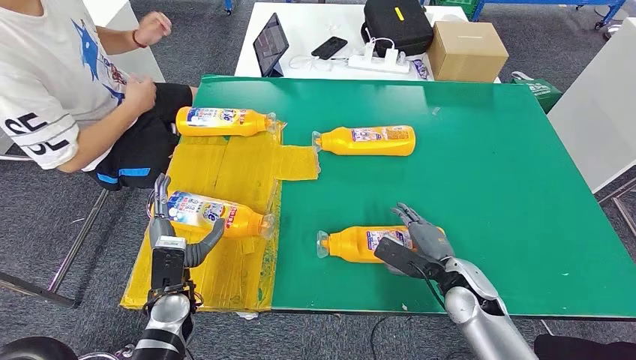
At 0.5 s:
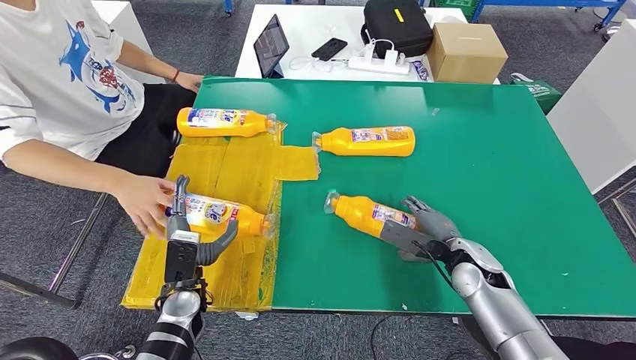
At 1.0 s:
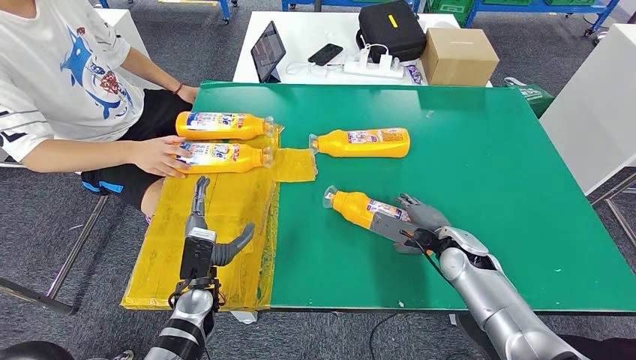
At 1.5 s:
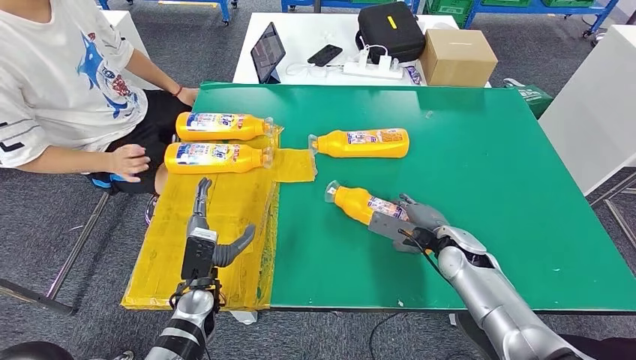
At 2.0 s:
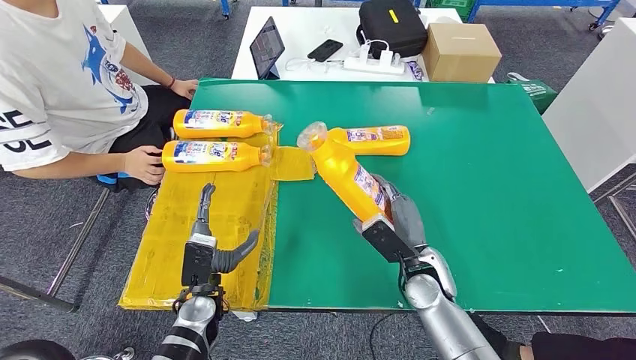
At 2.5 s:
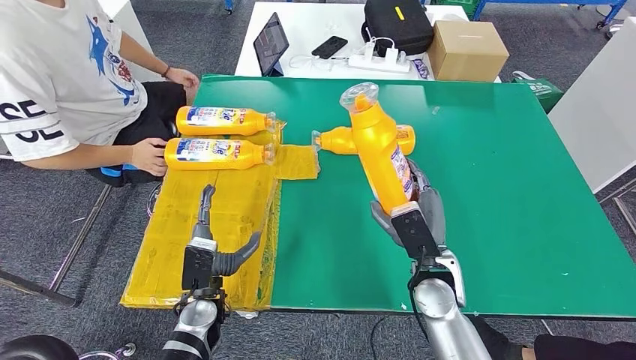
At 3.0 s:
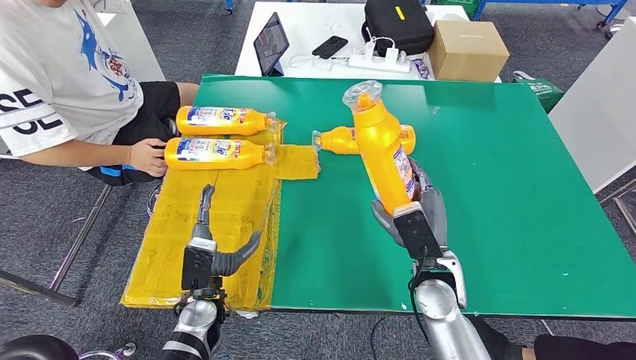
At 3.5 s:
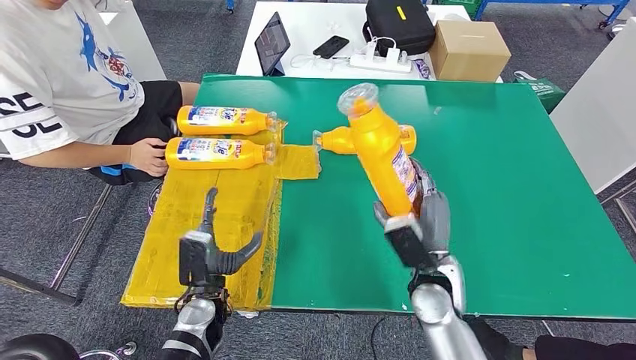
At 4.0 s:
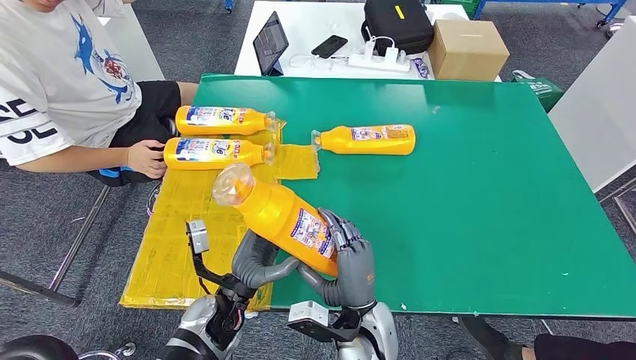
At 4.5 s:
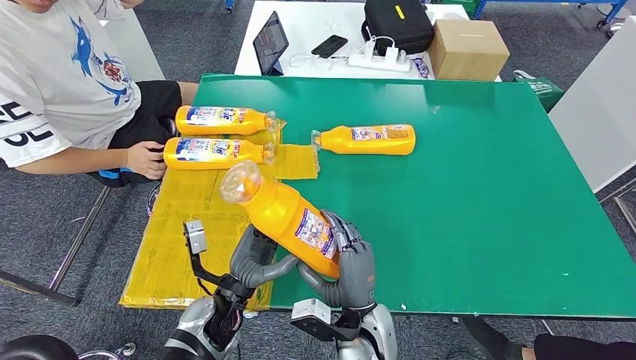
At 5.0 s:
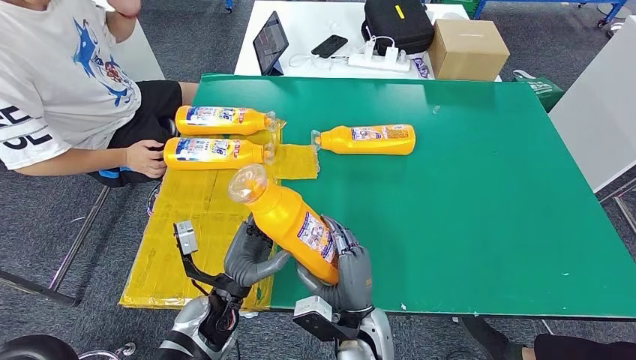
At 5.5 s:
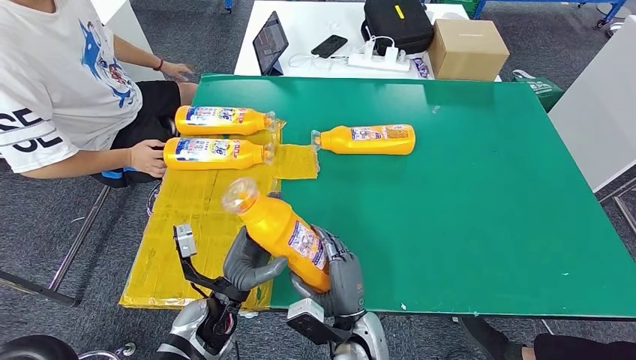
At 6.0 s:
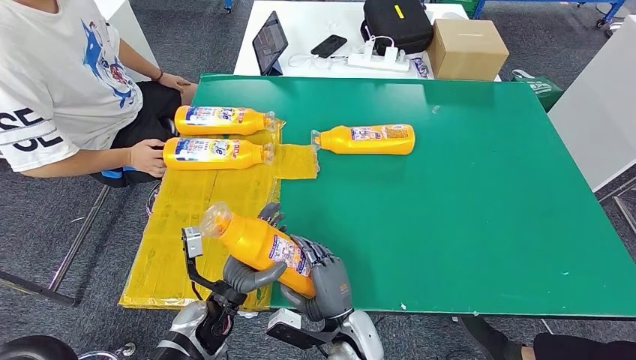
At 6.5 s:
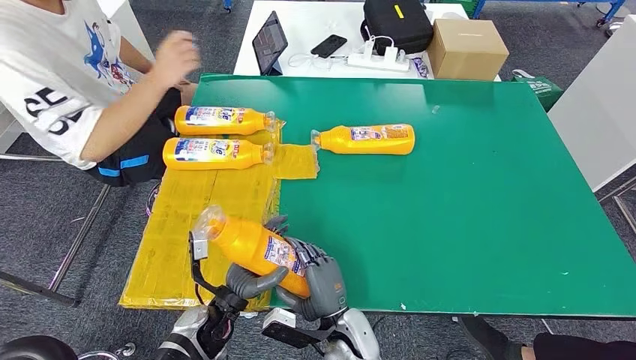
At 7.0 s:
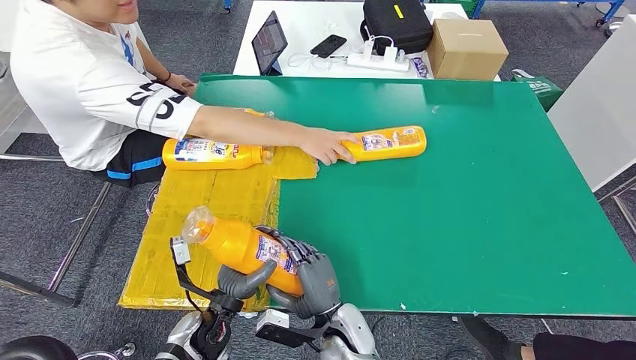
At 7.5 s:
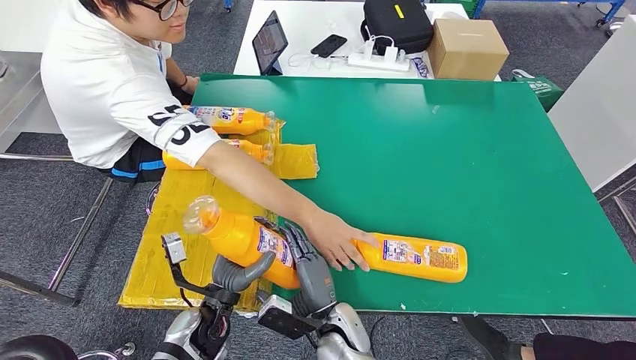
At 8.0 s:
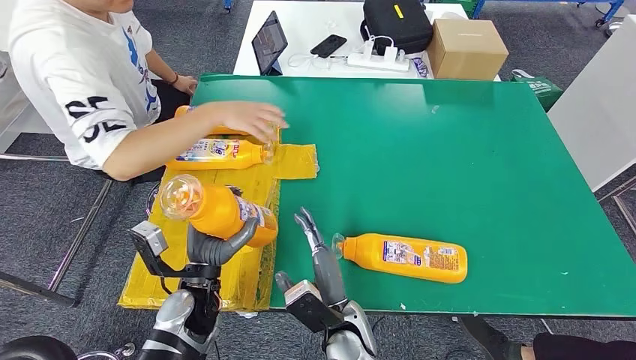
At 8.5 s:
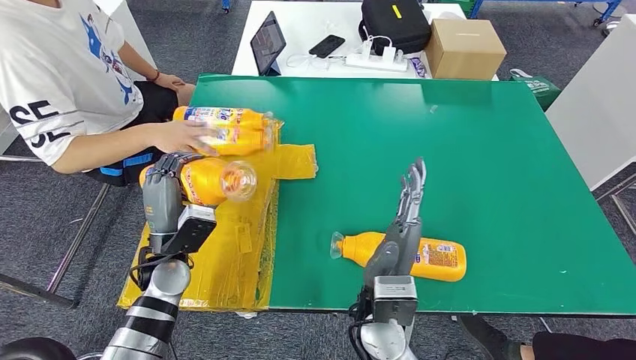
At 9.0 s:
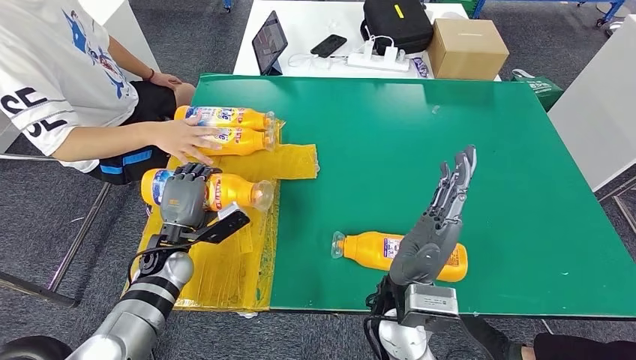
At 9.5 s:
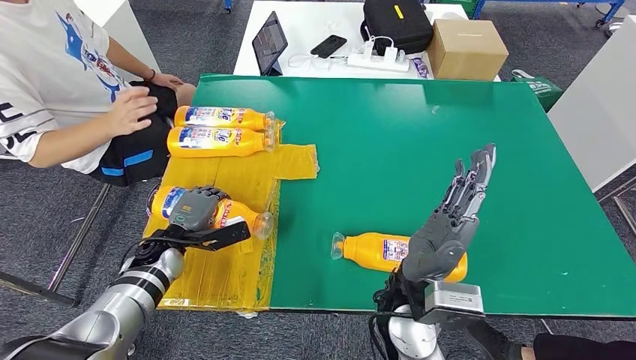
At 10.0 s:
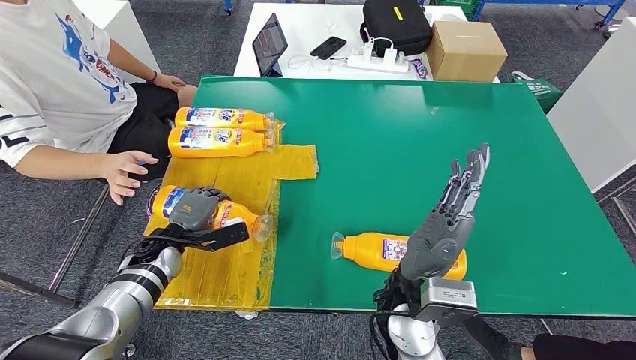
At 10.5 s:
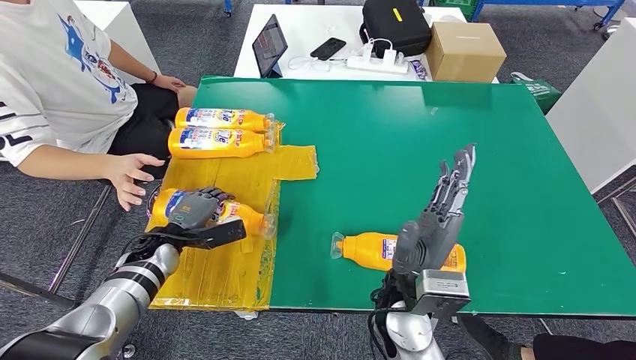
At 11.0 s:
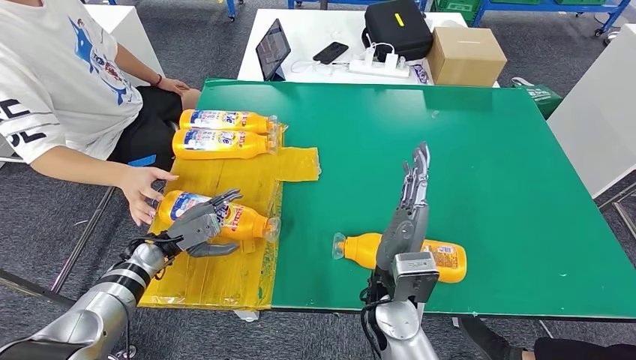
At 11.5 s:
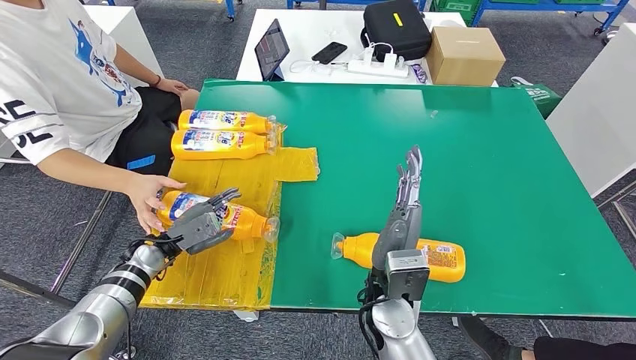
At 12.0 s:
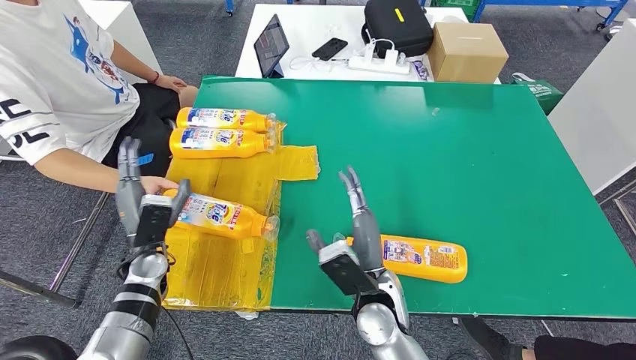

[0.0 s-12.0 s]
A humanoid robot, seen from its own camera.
Step, 0.0 to 2.5 s: Pick up the fast-moving consumer goods bottle from the table.
Step, 3.5 to 10.0 s: Flip the fast-moving consumer goods bottle to the front side.
4.0 to 6.0 s: The right hand is displaced downward by some 5 cm.

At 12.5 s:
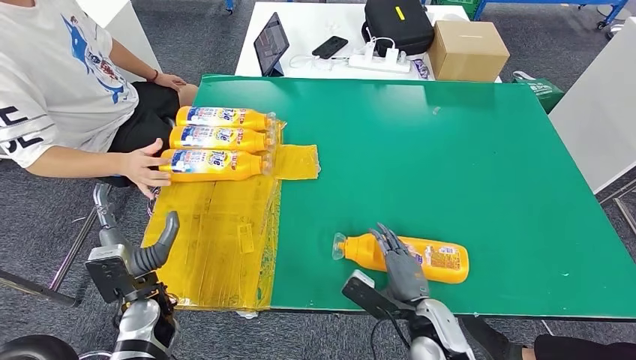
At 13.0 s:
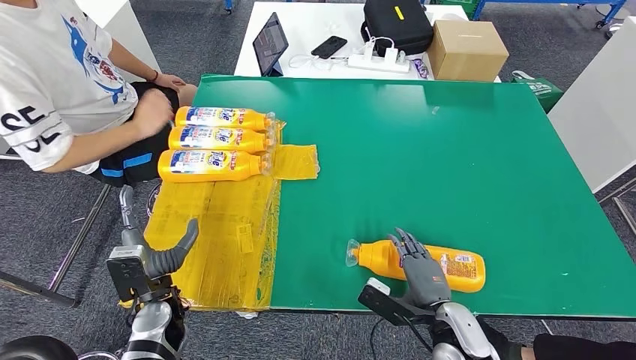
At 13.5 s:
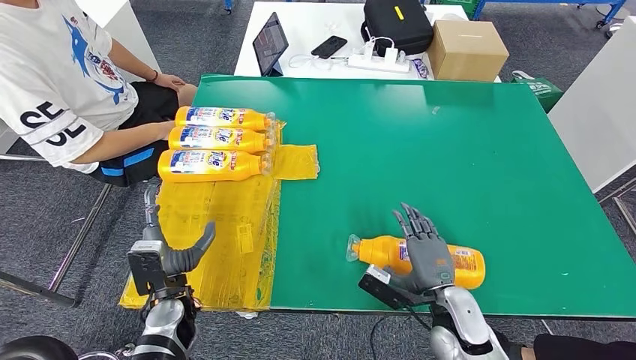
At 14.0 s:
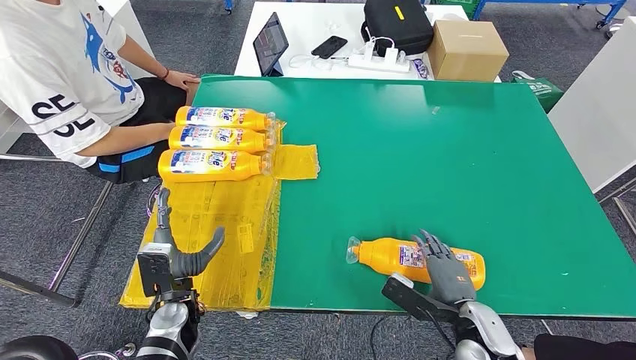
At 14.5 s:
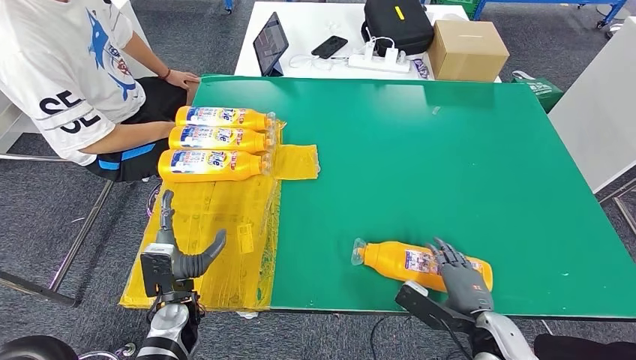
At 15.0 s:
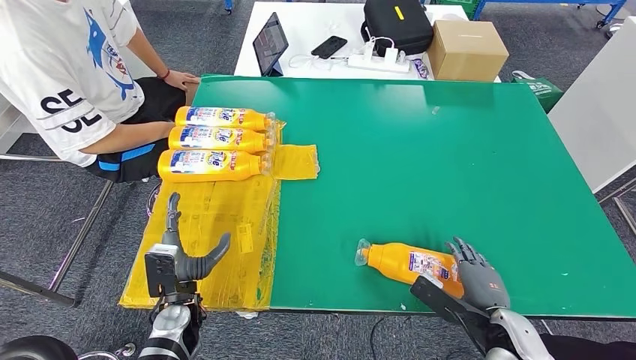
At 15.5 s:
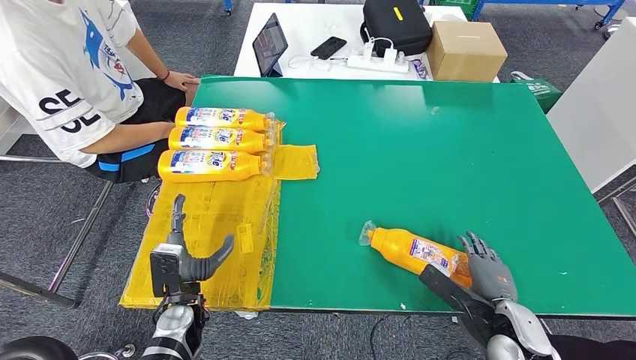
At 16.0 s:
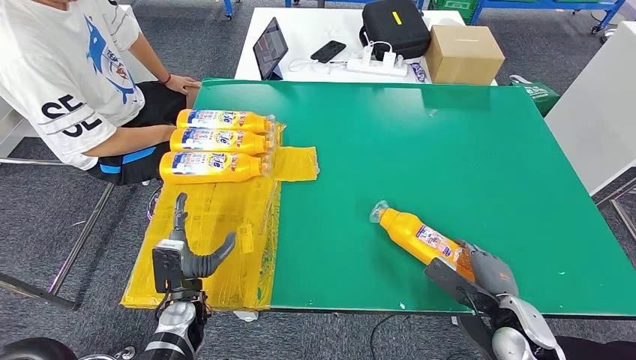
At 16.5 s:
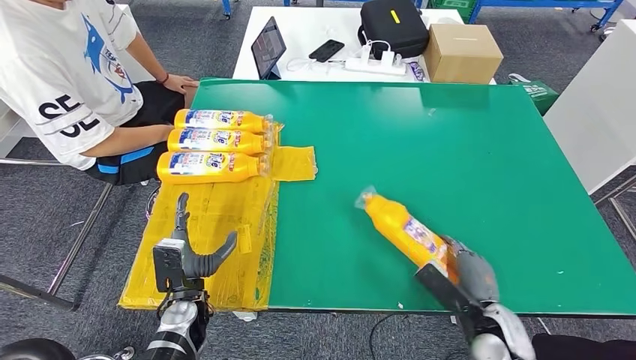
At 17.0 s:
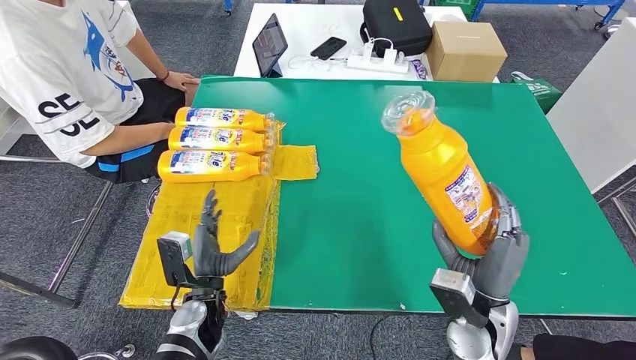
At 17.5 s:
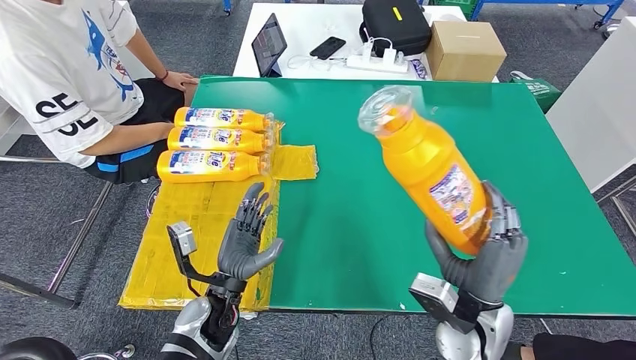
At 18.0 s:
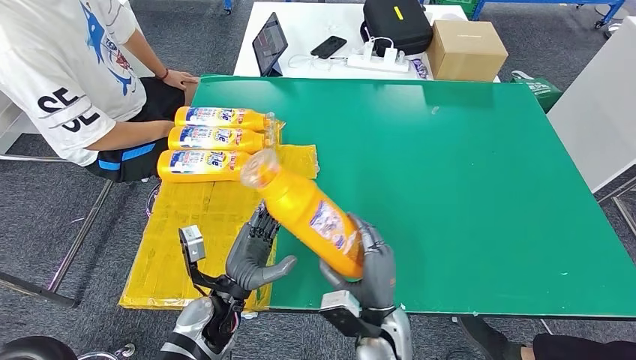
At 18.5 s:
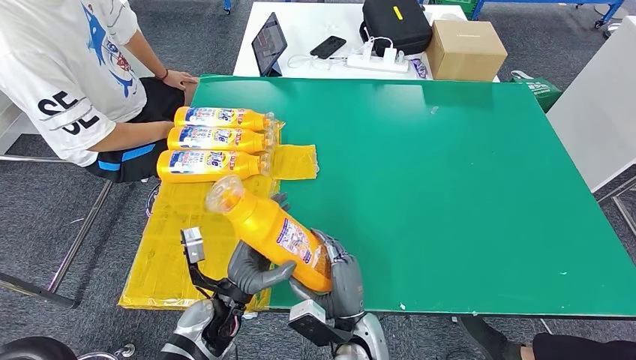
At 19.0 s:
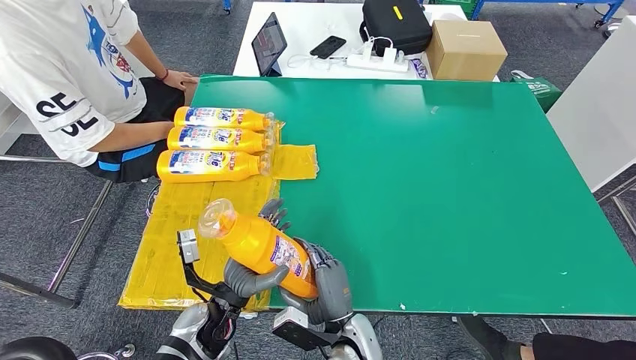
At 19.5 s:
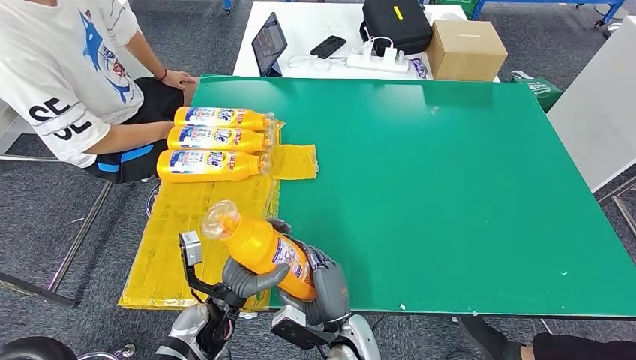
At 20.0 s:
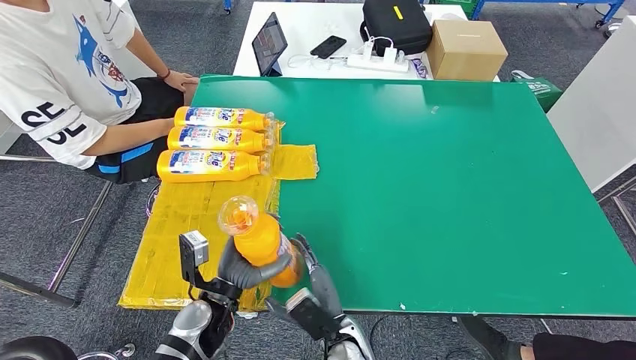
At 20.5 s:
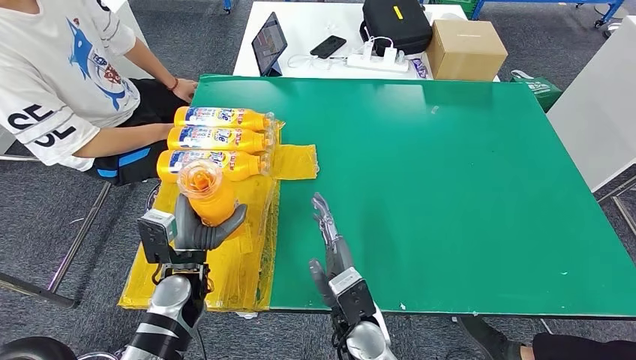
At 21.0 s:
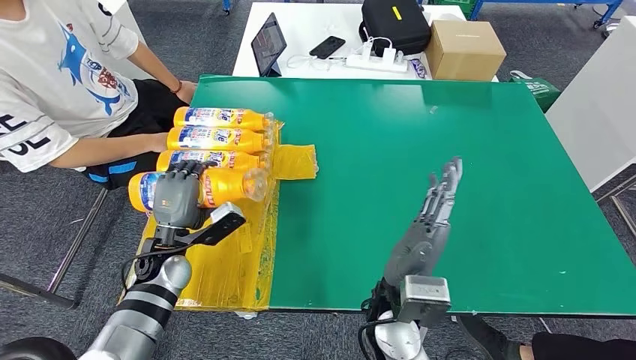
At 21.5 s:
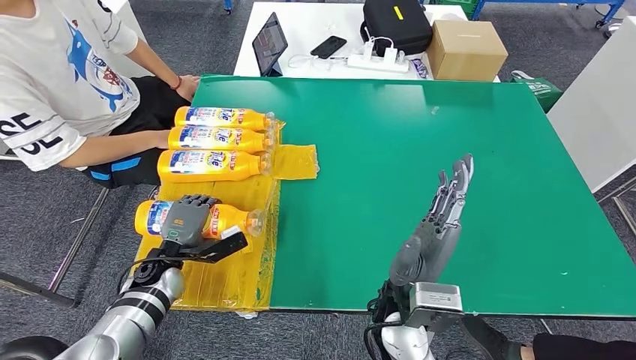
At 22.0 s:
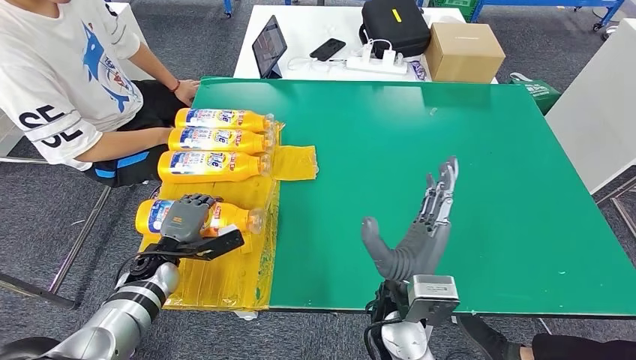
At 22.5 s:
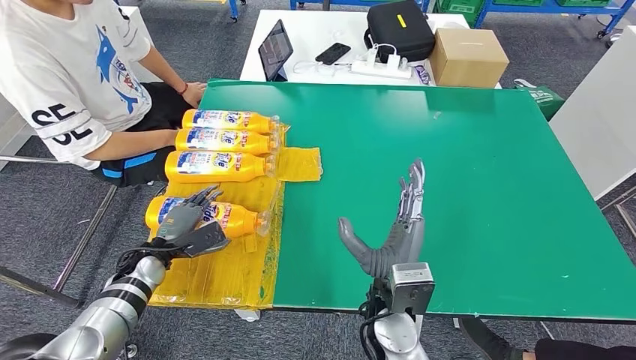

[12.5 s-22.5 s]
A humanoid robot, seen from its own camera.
Step, 12.5 to 15.5 s: Pick up the fast-moving consumer goods bottle from the table.
Step, 16.0 to 22.5 s: Flip the fast-moving consumer goods bottle to the front side.
18.5 to 20.5 s: The right hand changes place by about 5 cm. Meanwhile the left hand goes about 5 cm to the left.
